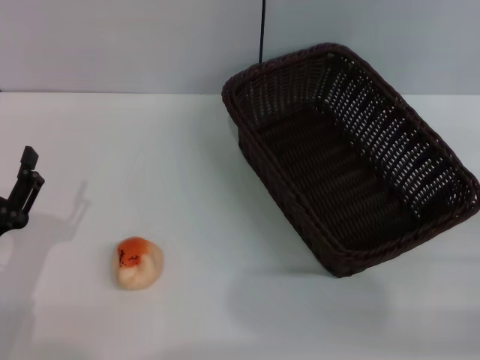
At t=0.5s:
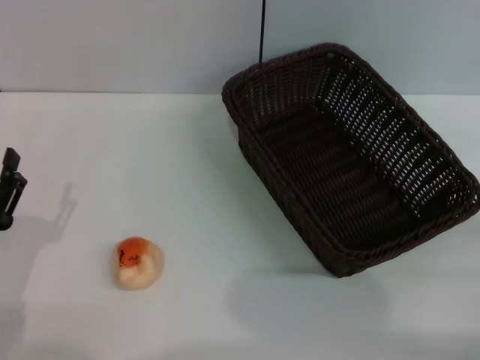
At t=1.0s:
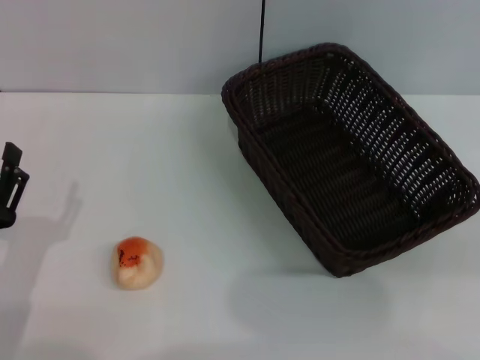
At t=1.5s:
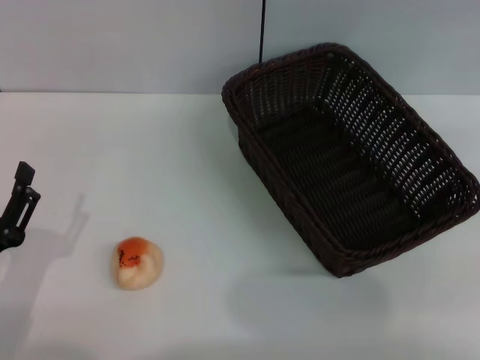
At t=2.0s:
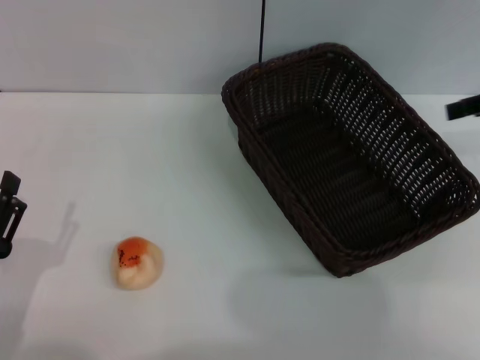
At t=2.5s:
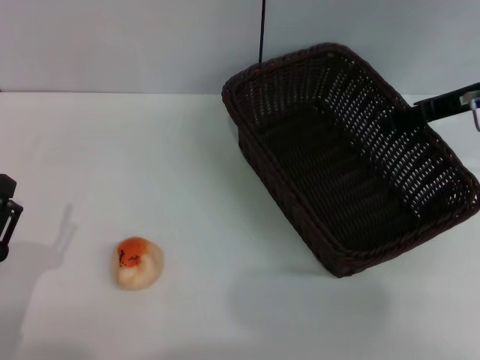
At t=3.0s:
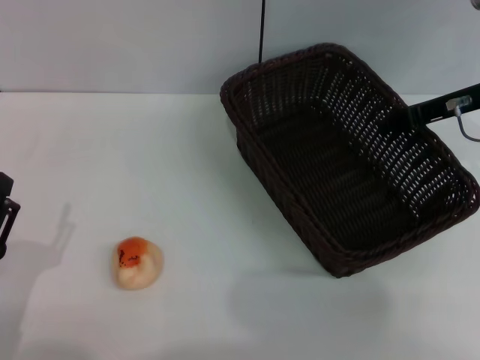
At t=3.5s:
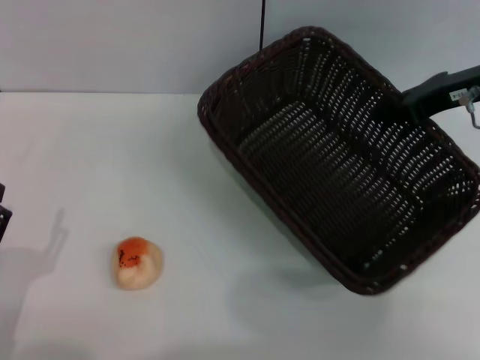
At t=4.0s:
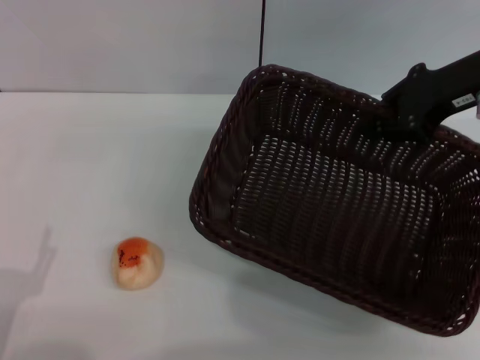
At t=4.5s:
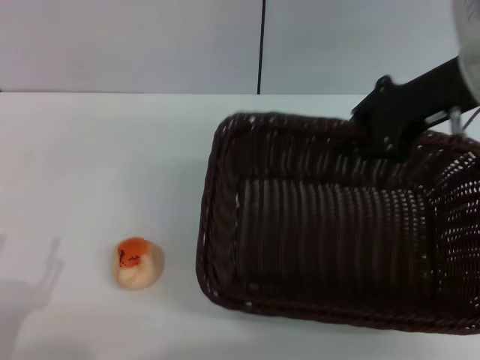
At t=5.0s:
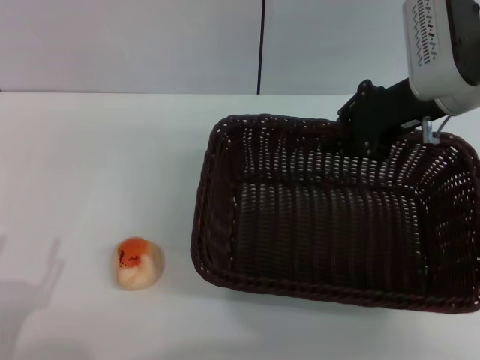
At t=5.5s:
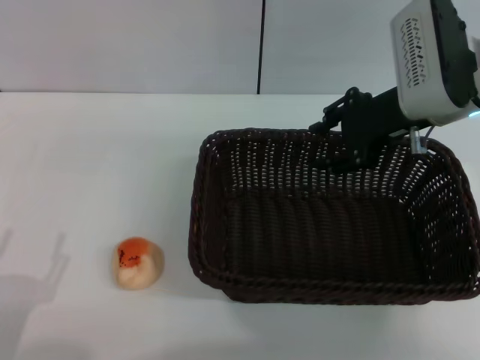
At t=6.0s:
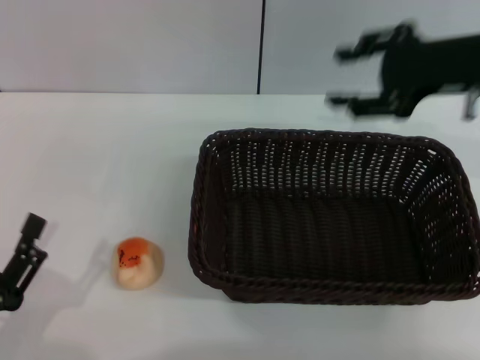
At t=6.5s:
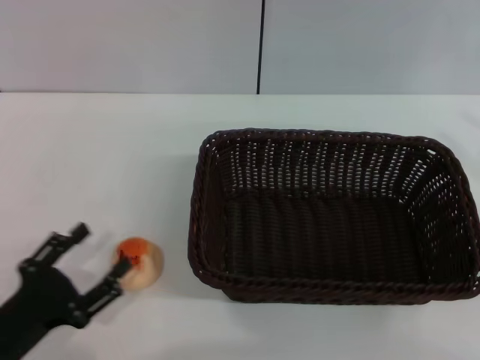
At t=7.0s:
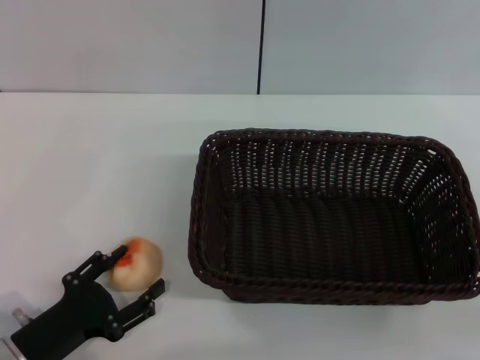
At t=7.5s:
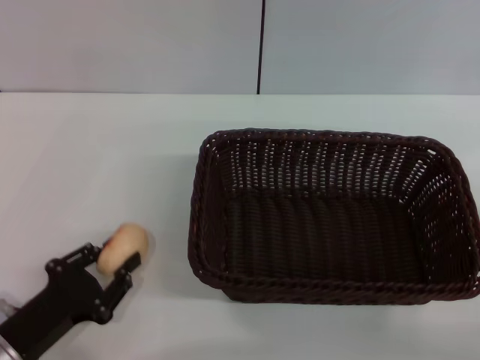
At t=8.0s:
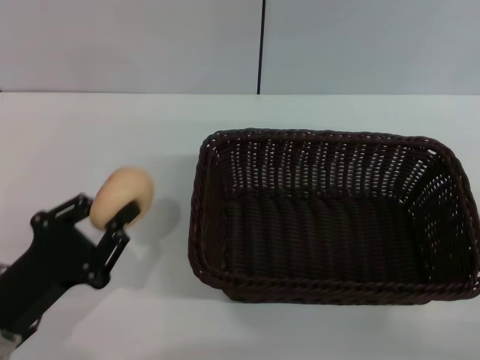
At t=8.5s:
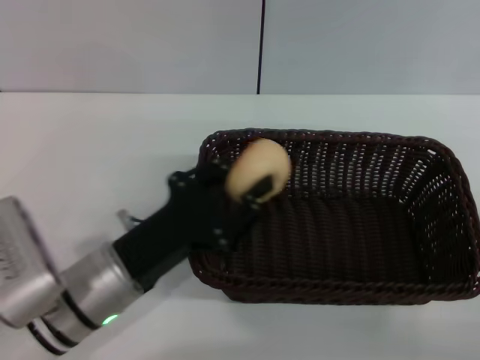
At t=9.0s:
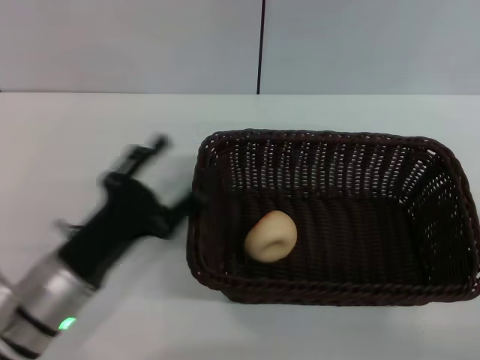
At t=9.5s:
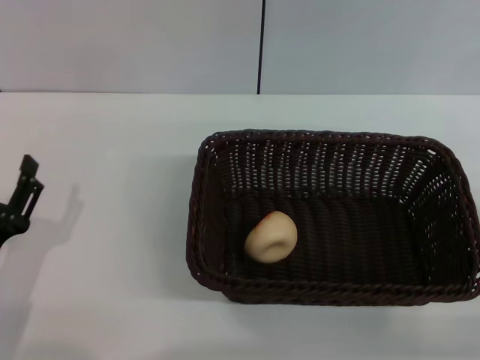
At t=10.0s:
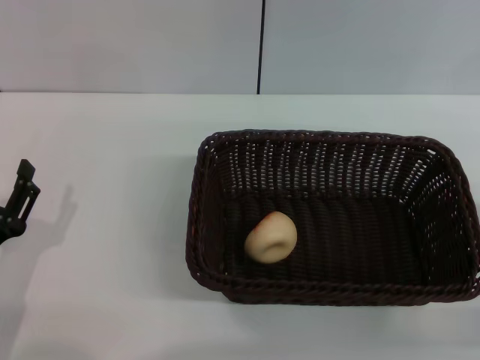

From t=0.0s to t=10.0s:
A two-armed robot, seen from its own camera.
Step, from t=0.0s to t=5.5s: Move the basket to the center of view with the right gripper.
Step, from t=6.5s to t=7.5s: Pick up the egg yolk pastry with the left gripper.
Step, from t=8.0s to t=8.5s: Place the egg yolk pastry into the basket with the left gripper.
From t=0.0s to t=2.0s: The right gripper heads forward and upward, covering roughly 25 cm.
From t=2.0s to t=4.0s: The right gripper moves to the left, approximately 10 cm, and closes its fingers.
From t=4.0s to t=6.0s: The right gripper opens its fingers.
From t=6.0s to t=8.0s: The left gripper shifts about 5 cm forward, and closes its fingers, while the right gripper goes approximately 30 cm backward, downward and to the right.
From t=8.0s to t=10.0s: The left gripper goes to the right and returns, roughly 10 cm each way, and opens its fingers.

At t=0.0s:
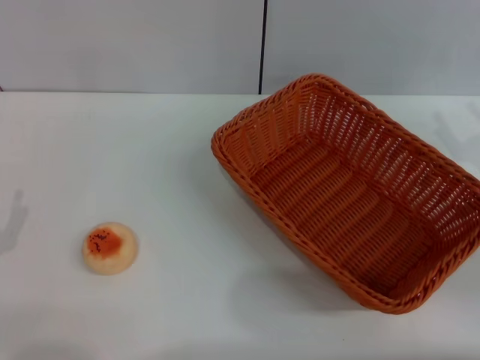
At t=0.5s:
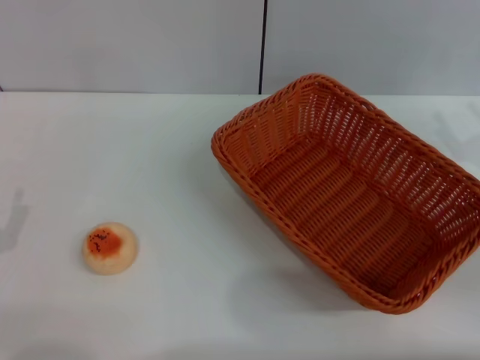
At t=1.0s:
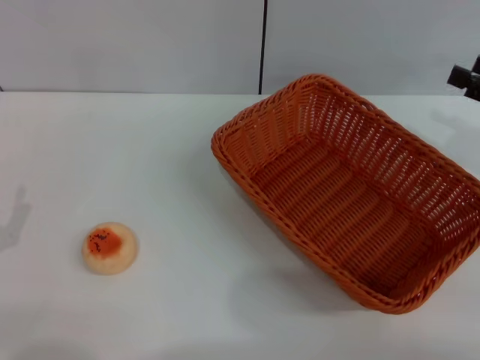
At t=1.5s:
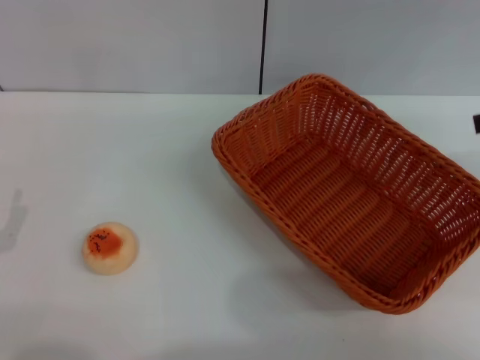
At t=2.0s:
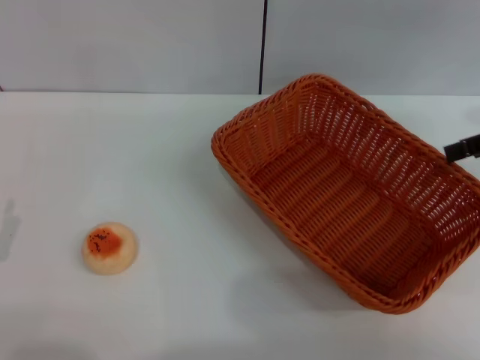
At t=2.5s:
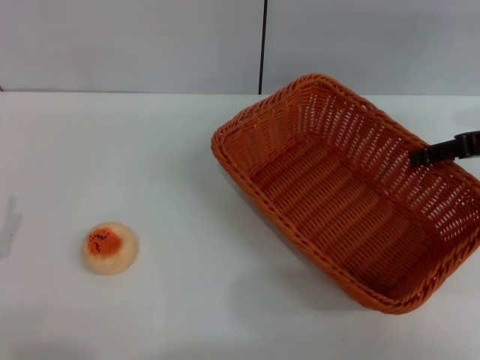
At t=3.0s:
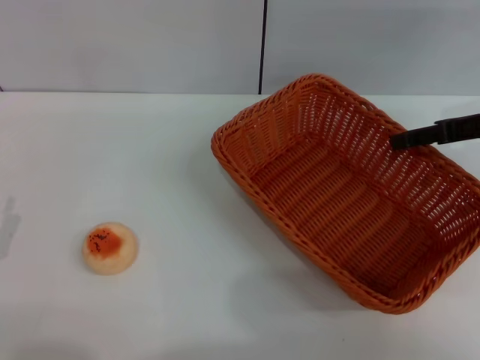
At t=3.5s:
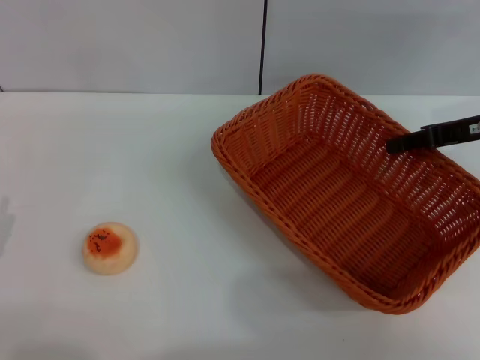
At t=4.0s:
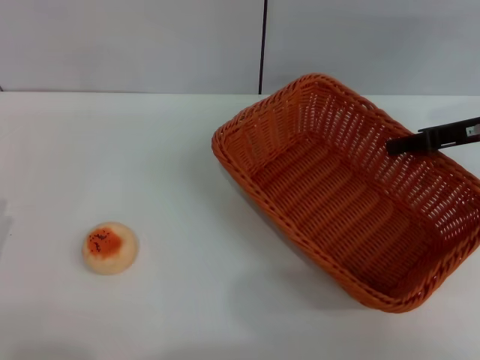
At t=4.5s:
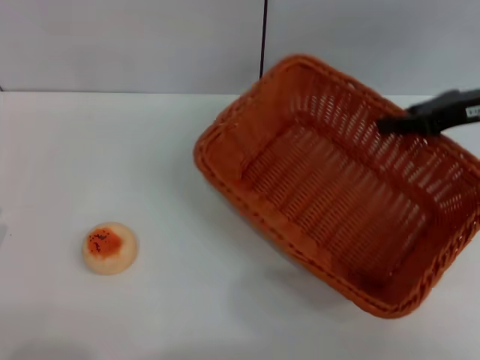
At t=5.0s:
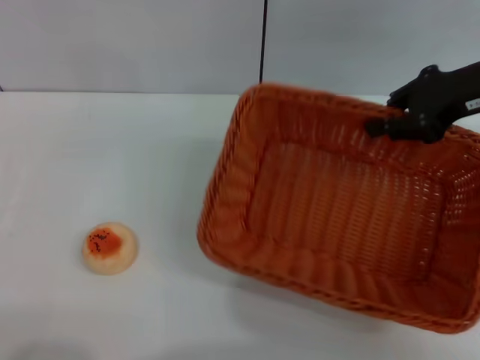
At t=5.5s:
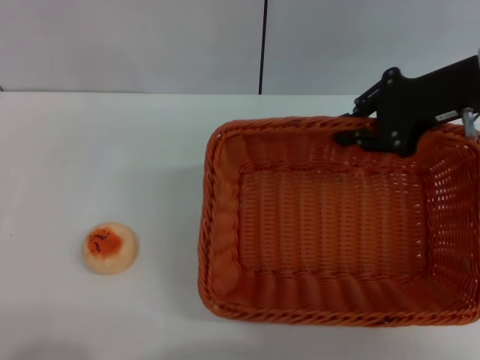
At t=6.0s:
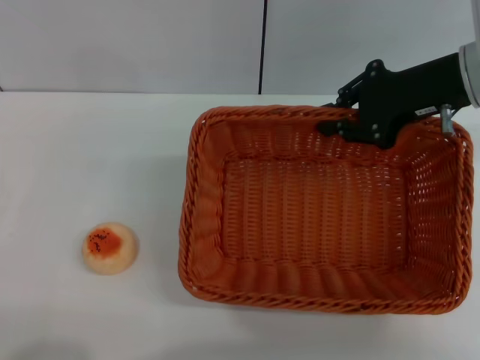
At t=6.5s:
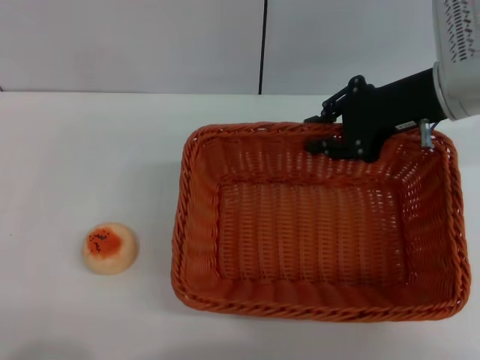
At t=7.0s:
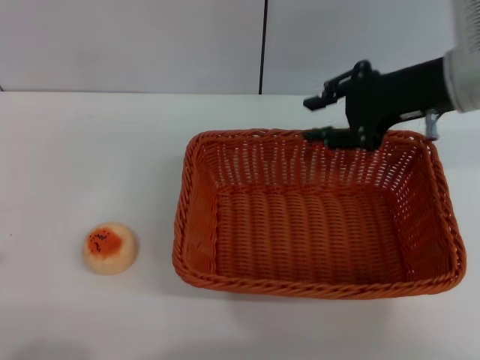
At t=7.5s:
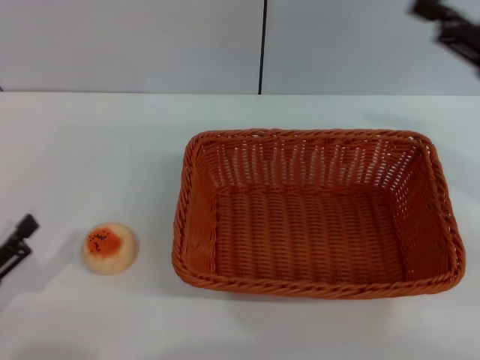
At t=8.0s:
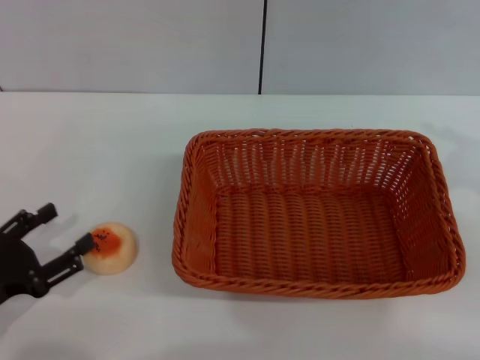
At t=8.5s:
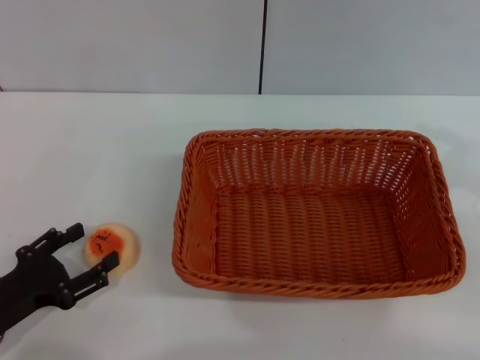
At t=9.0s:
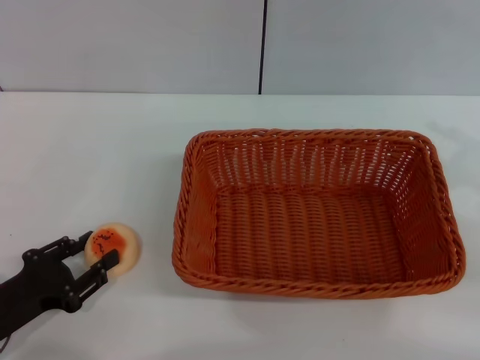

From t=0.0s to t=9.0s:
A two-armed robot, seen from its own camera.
Step, from t=0.0s to t=7.0s: Move the basket to the center of view with the right gripper.
From t=0.0s to t=2.0s: The right gripper travels upward and forward by approximately 15 cm.
From t=2.0s to t=4.5s: The right gripper moves approximately 5 cm, and closes up.
From t=4.5s to t=7.0s: The right gripper is displaced to the left by about 5 cm, and opens.
From t=7.0s to t=9.0s: The right gripper moves to the right and backward, about 20 cm; the left gripper travels forward by approximately 10 cm.

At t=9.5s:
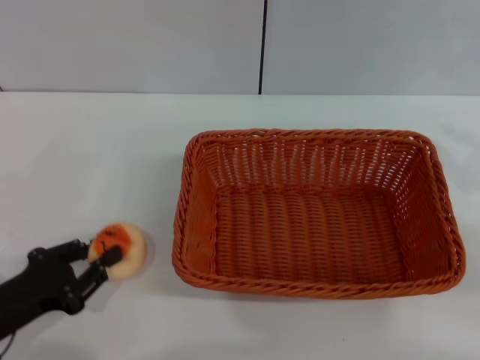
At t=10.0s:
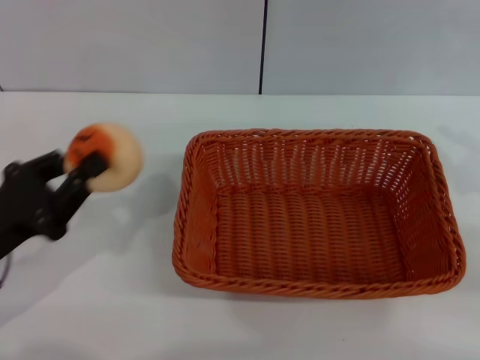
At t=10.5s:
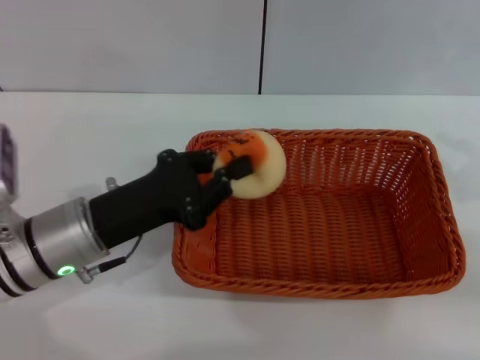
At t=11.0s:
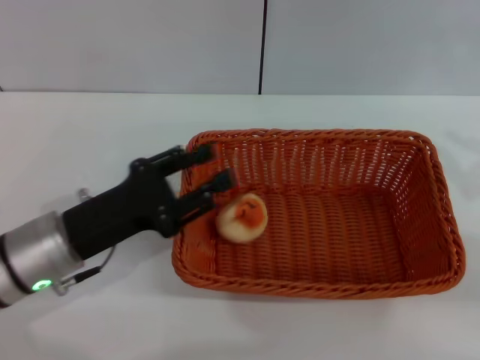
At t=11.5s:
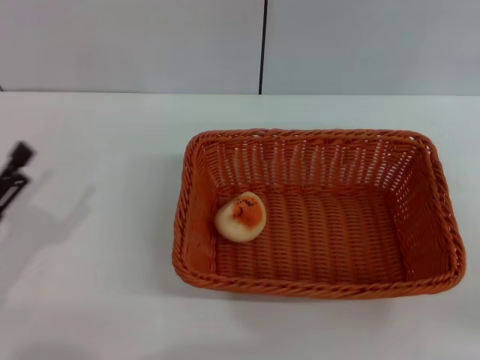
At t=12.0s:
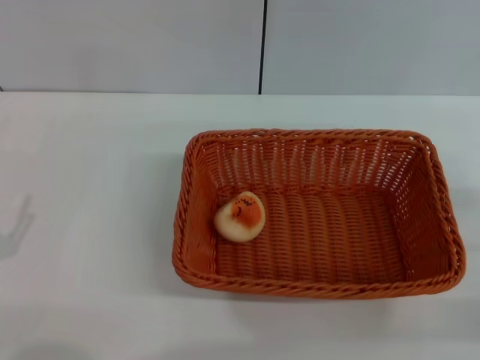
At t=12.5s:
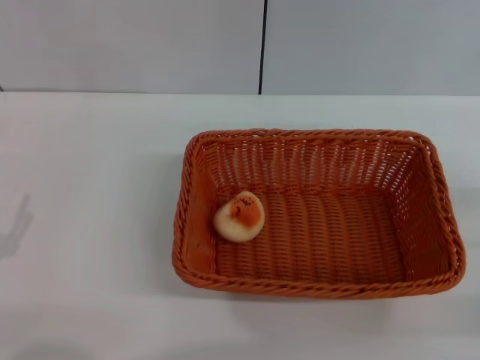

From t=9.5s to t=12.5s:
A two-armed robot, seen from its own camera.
Step, from t=10.5s to t=11.0s: Place the egg yolk pastry into the basket with the left gripper.
From t=9.5s to t=11.0s: The left gripper travels to the right and forward by approximately 10 cm.
From t=11.0s to t=12.5s: The right gripper shifts some 5 cm downward, and opens its fingers; the left gripper is displaced to the left and backward by roughly 15 cm, and opens its fingers.
